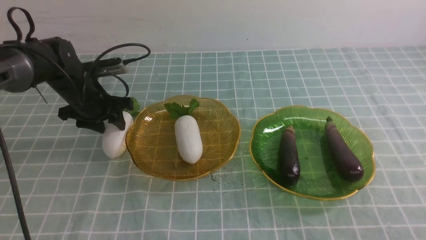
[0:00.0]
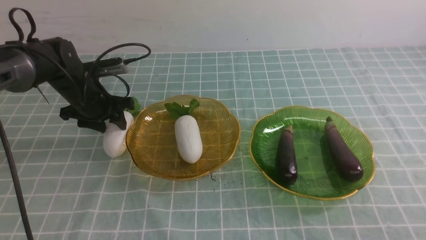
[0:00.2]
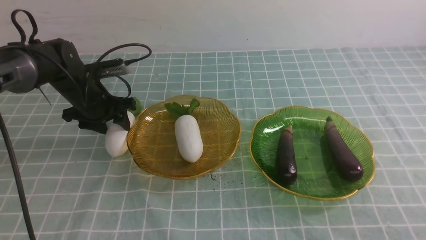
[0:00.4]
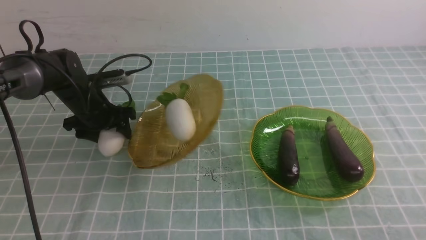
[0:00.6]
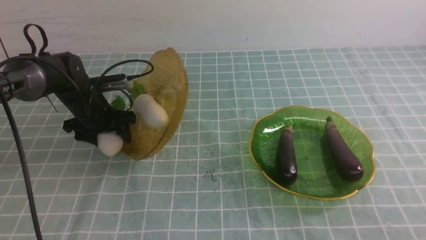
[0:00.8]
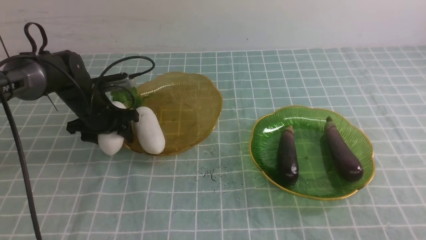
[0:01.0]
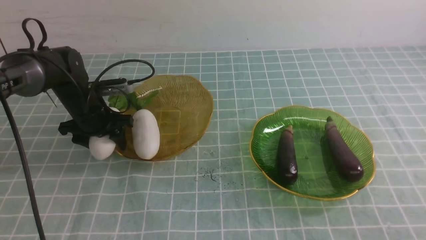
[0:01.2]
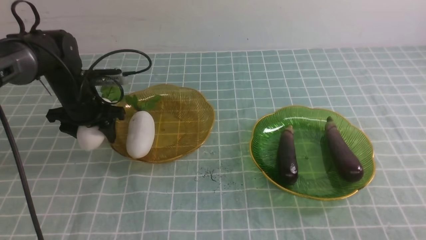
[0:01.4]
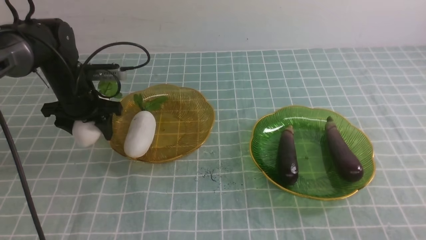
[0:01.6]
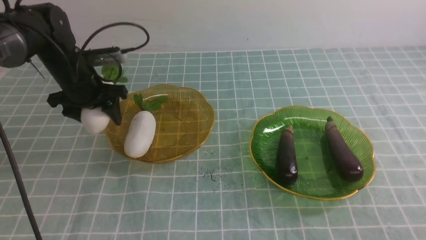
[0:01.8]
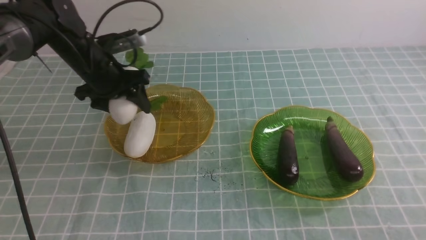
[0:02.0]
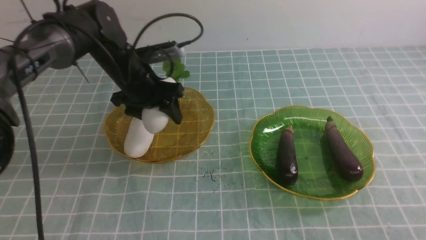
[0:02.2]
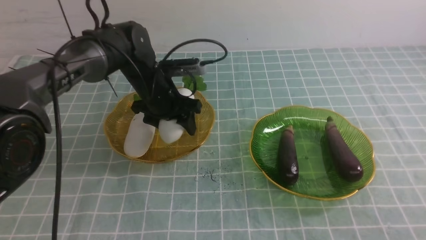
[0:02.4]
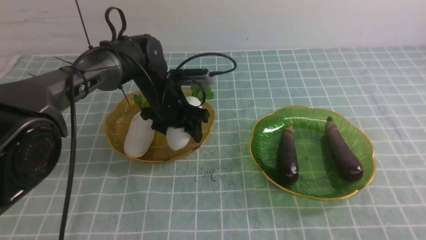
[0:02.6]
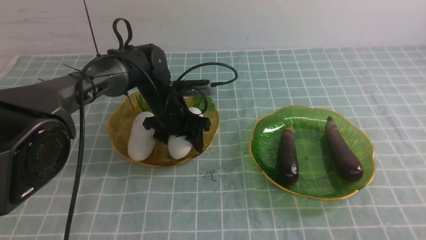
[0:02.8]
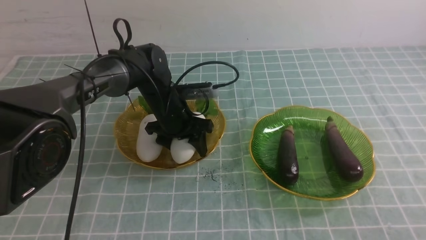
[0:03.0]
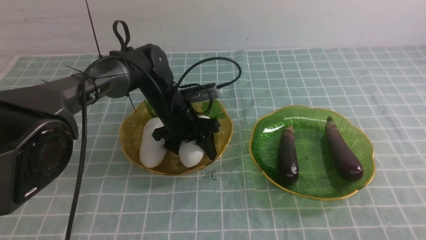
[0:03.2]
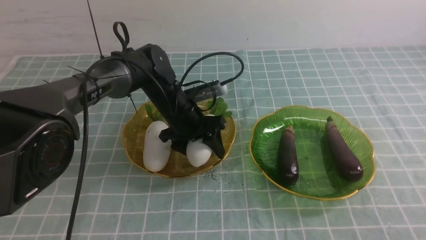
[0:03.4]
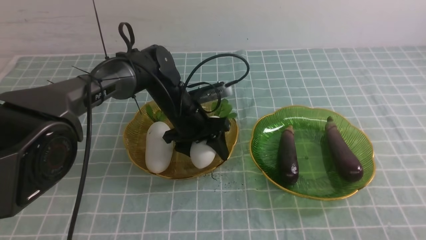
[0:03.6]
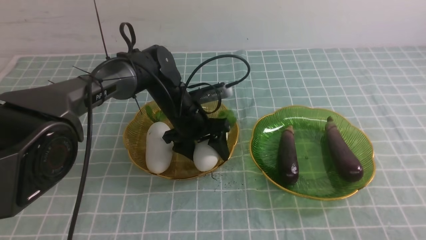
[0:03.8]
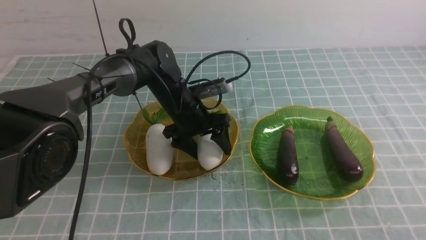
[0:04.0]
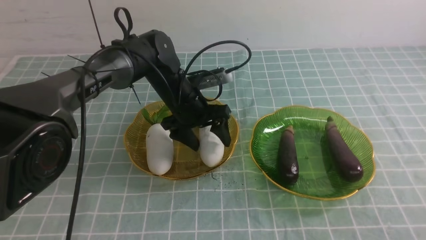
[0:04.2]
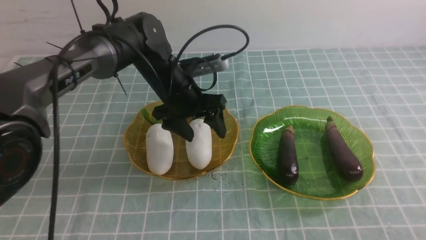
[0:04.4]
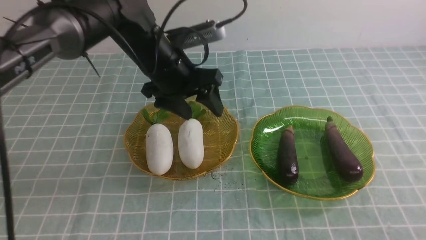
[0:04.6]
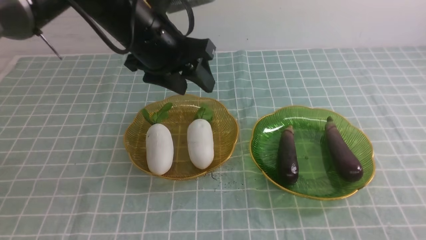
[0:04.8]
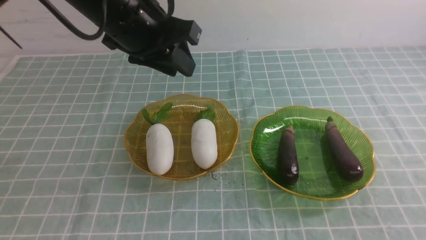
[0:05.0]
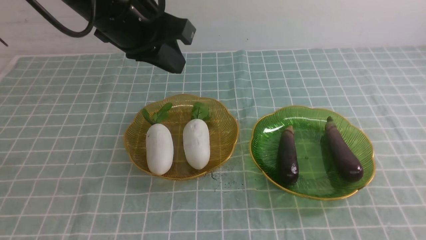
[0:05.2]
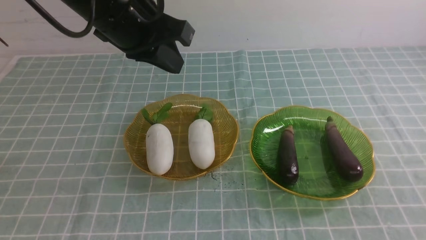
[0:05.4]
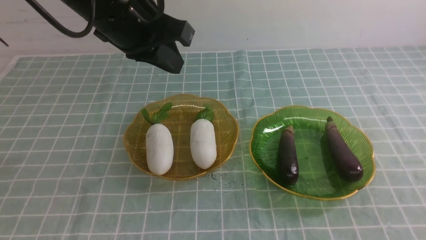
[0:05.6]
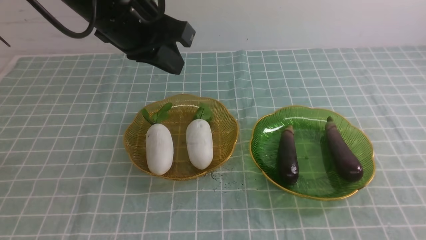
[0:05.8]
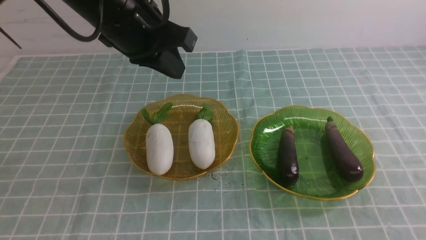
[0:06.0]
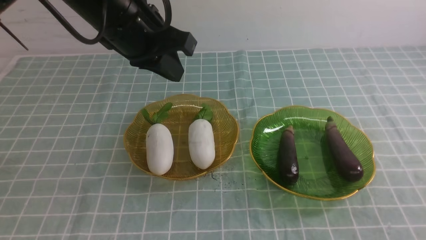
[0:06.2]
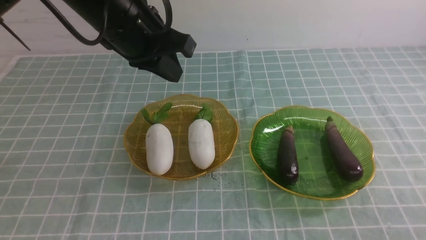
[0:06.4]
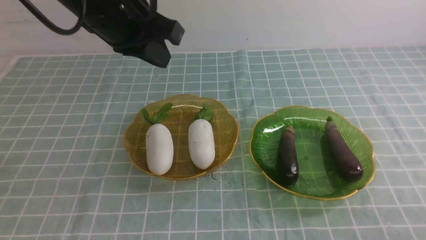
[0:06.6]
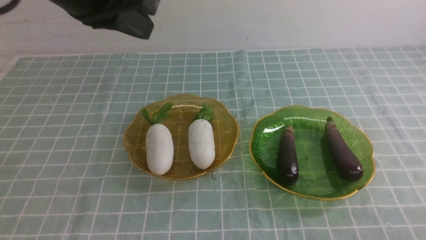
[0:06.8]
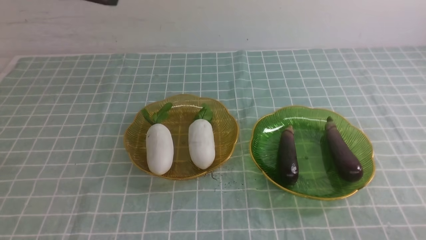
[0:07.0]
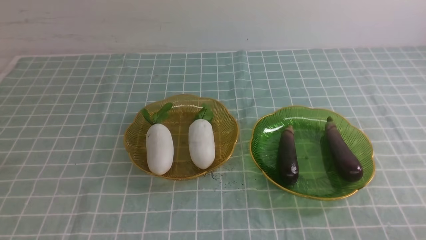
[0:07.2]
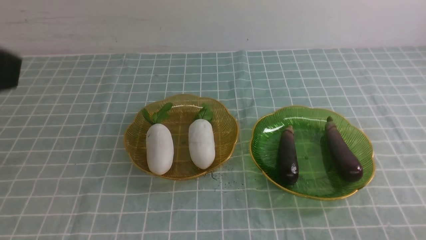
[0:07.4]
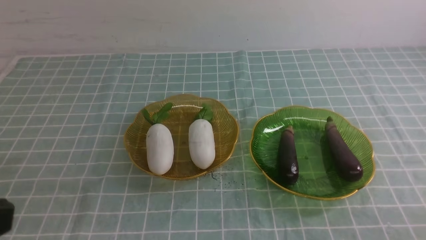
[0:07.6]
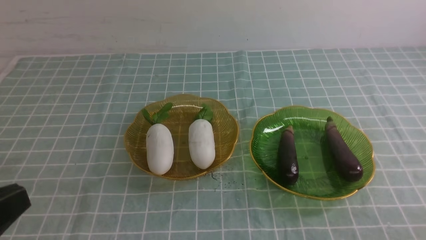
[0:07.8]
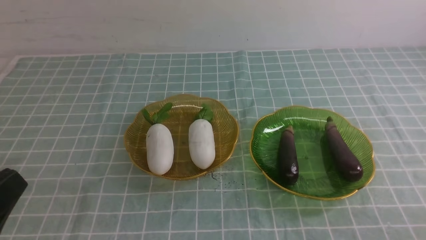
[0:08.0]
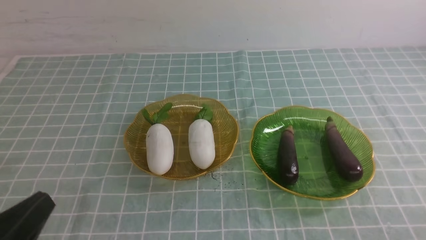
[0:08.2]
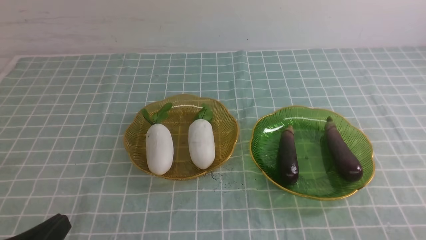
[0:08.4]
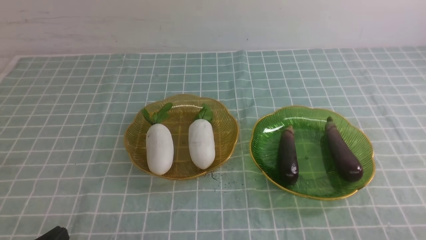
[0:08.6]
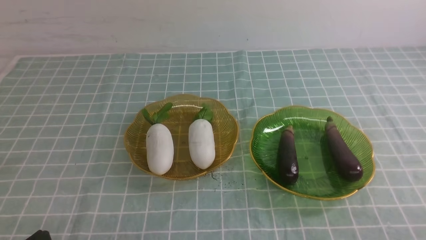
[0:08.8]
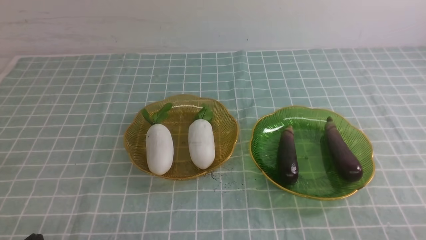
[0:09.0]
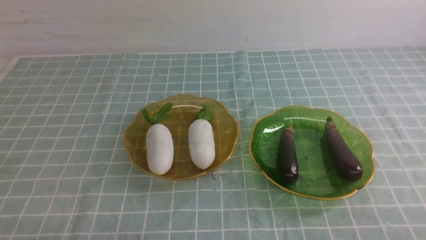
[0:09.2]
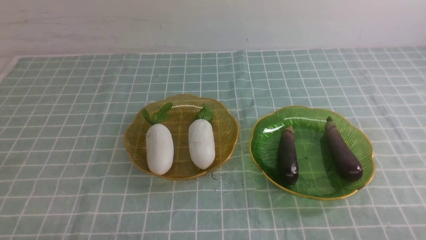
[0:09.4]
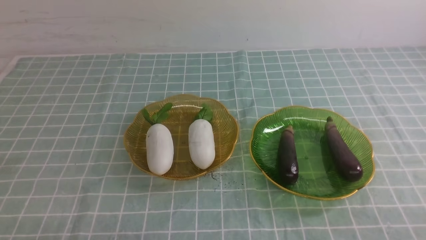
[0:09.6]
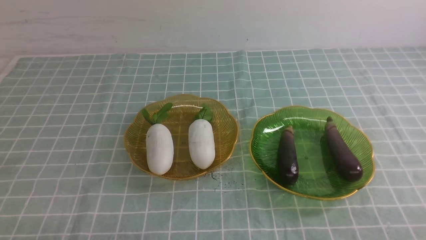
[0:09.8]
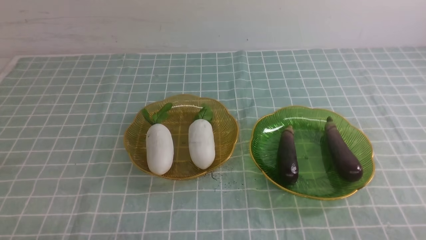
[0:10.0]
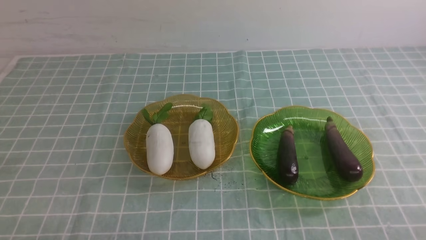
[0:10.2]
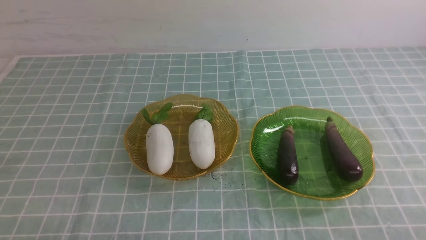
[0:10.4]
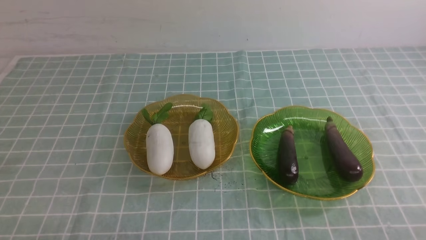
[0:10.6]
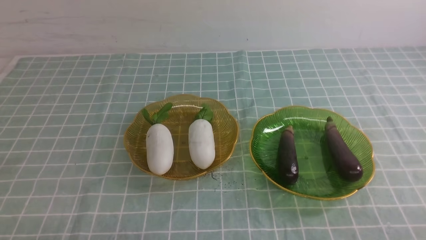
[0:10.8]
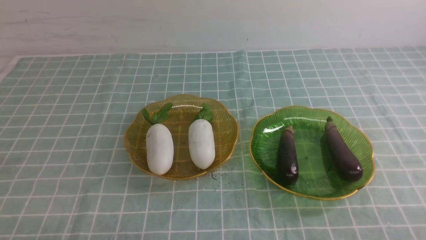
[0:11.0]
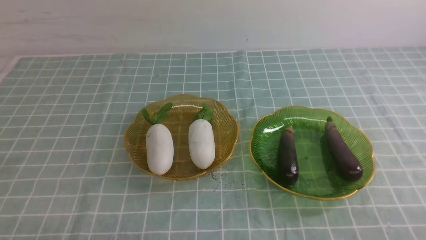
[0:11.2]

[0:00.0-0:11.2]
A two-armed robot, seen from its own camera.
Step, 0:00.0 to 0:04.2: use the left arm to grab a radish and put it into the left plate.
0:00.0 to 0:01.6: The grippers make only small movements.
0:01.6 to 0:03.2: The left gripper goes about 15 cm to the right.
0:03.2 to 0:04.8: The left gripper goes approximately 15 cm upward.
0:04.8 to 0:06.4: The left gripper goes about 5 cm upward, and closes up. Meanwhile the right gripper heads downward, covering roughly 5 cm.
0:06.4 to 0:08.0: The right gripper heads downward, covering some 5 cm. Meanwhile the left gripper heads backward, covering about 30 cm.
0:08.0 to 0:09.6: The left gripper goes approximately 15 cm downward.
0:09.6 to 0:11.2: Both grippers stay put.

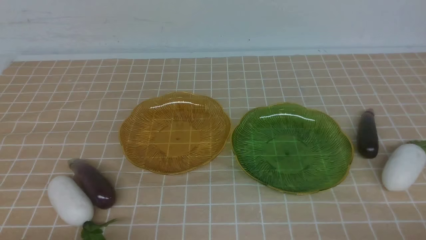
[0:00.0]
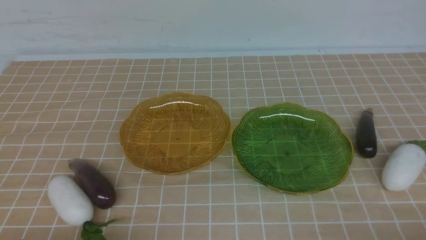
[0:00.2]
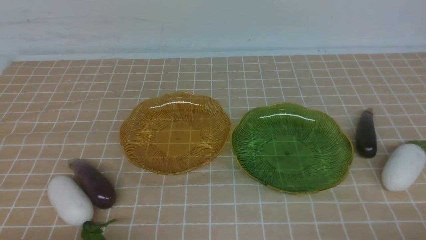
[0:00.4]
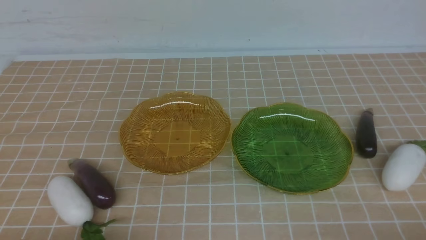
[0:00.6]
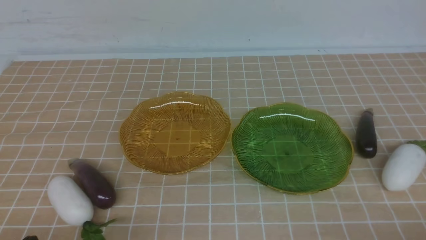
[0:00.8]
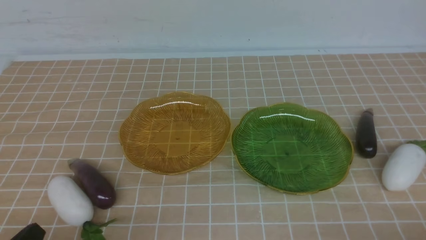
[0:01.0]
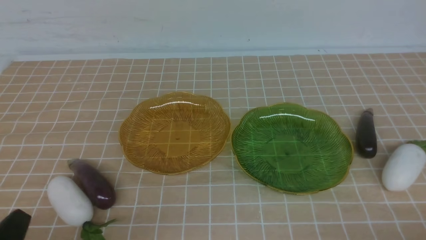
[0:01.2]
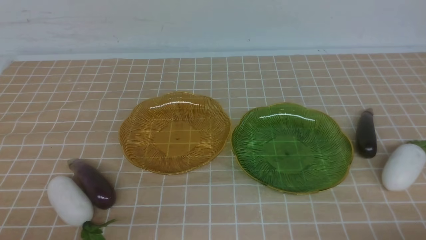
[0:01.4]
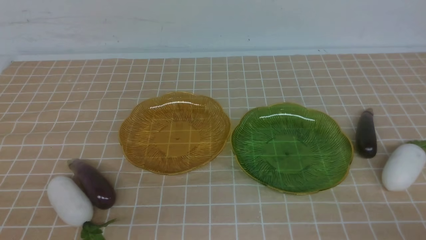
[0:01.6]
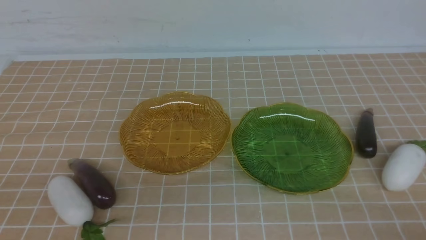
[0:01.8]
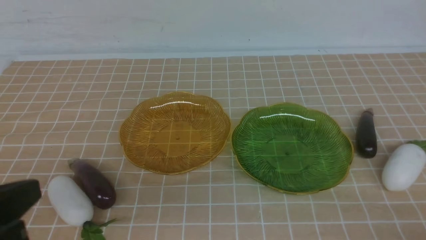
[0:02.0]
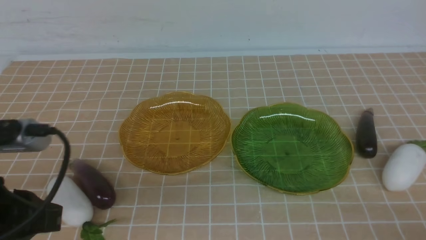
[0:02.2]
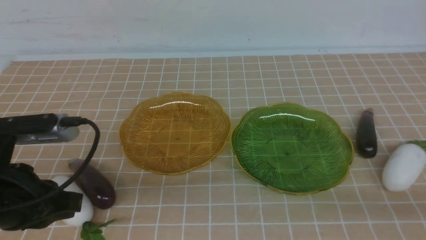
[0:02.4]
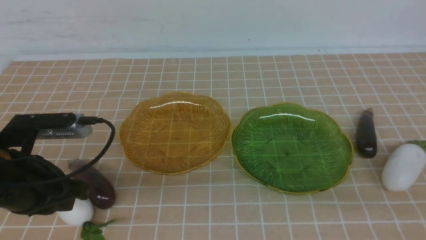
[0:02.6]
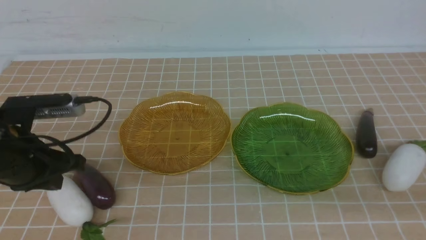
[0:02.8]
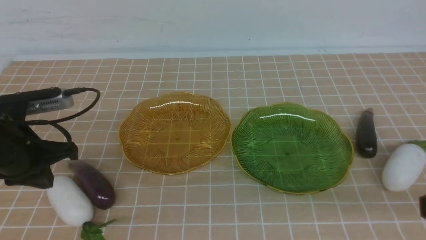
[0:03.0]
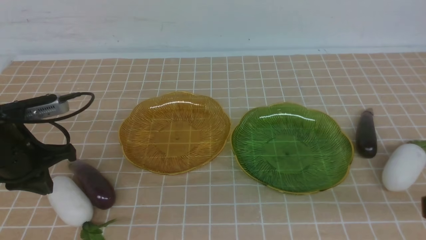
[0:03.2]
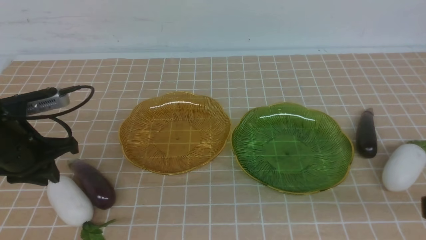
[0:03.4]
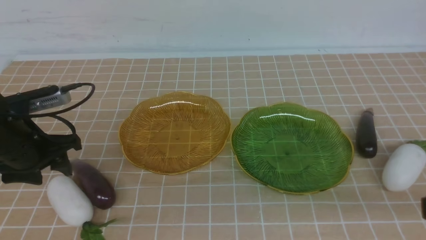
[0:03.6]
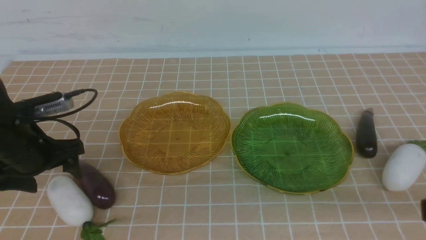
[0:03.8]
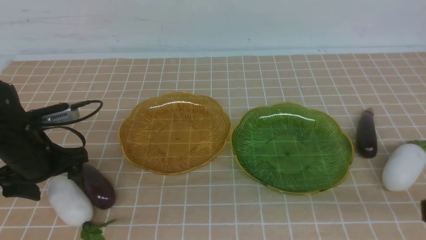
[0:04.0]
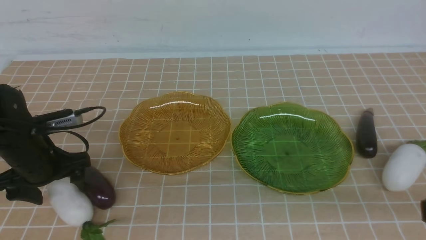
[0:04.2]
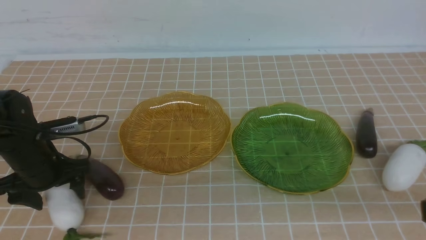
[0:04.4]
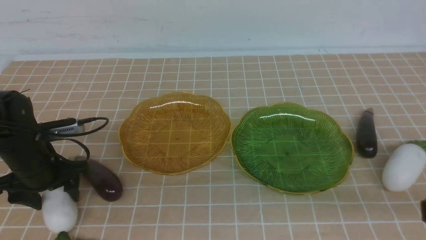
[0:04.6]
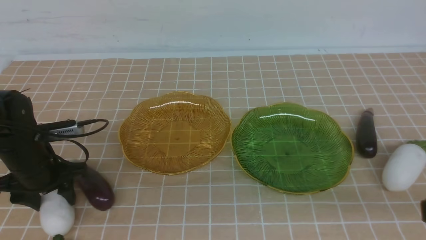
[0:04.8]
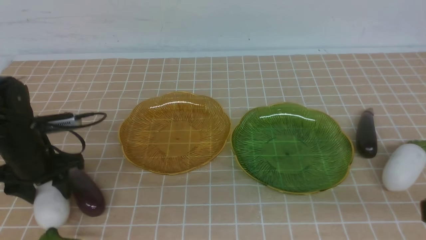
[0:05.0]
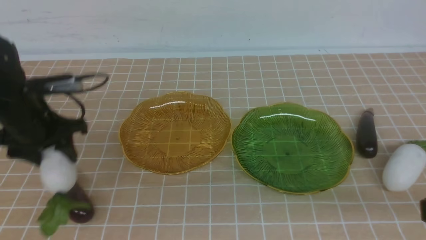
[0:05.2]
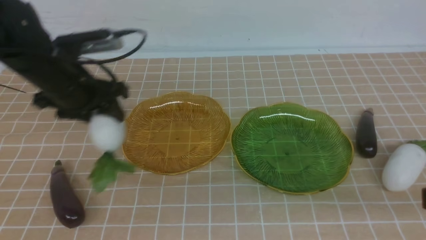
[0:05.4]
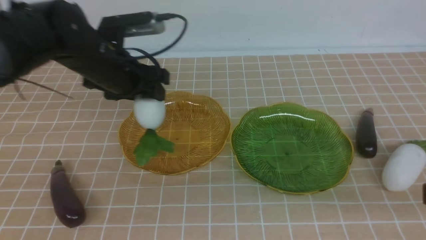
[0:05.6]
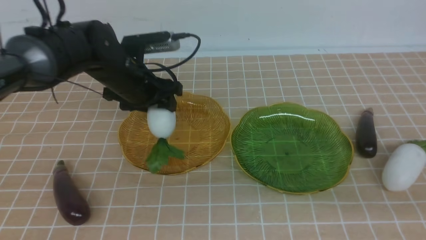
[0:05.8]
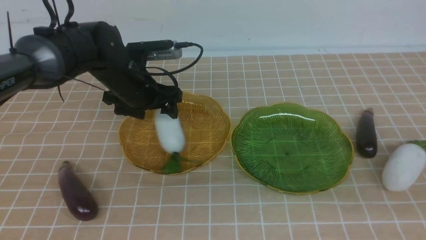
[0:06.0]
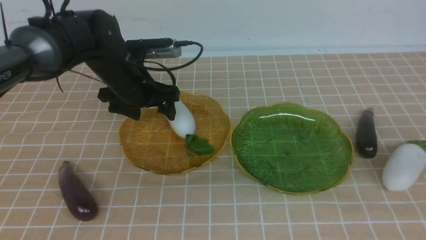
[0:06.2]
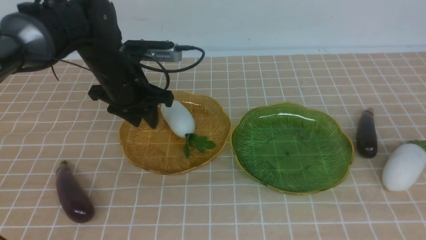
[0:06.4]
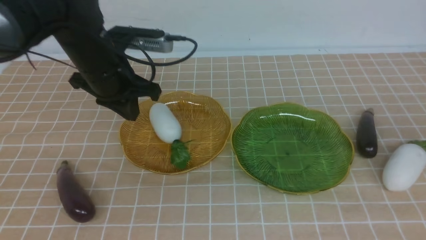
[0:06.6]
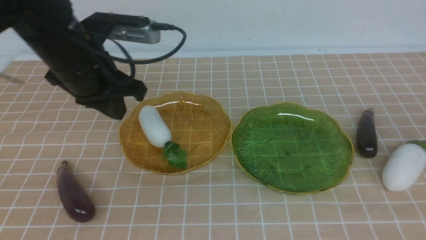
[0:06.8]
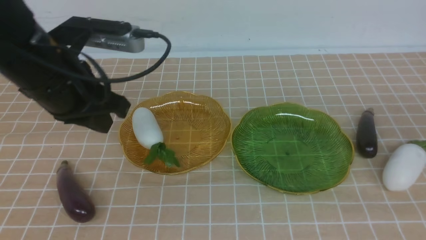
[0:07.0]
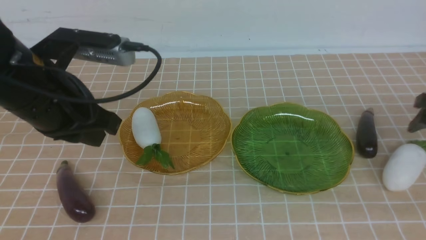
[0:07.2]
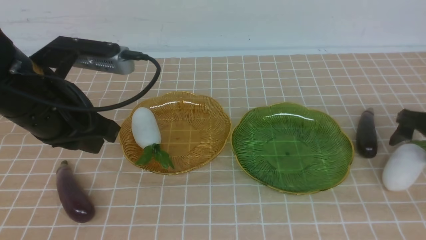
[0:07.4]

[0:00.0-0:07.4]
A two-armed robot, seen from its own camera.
Step, 0:00.0 to 0:06.2: use the left arm to grab a radish and put it into the left plate.
0:01.4 to 0:03.0: The left gripper shifts approximately 20 cm forward. The right gripper shifts some 15 cm upward.
0:03.0 to 0:04.4: The left gripper travels downward by approximately 5 cm, and opens up.
0:04.4 to 0:06.0: The left gripper heads to the right, forward and upward, covering approximately 20 cm.
0:06.0 to 0:07.4: The right gripper shifts approximately 30 cm forward and downward, and opens. The left gripper heads backward and upward, covering approximately 20 cm, and closes up.
